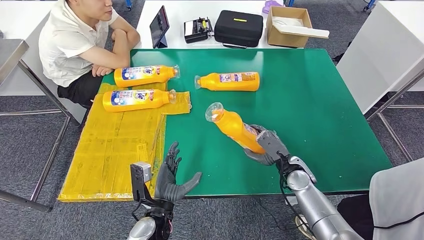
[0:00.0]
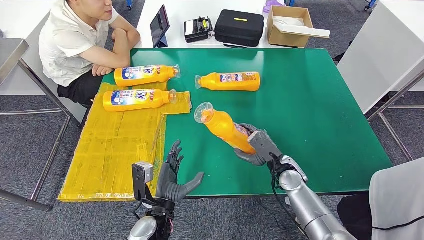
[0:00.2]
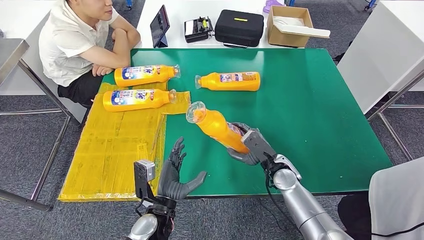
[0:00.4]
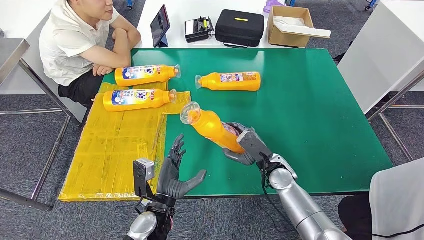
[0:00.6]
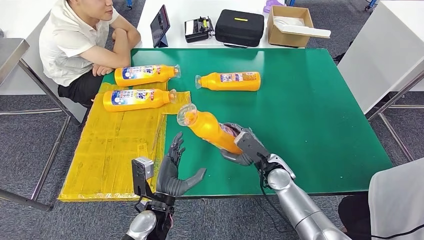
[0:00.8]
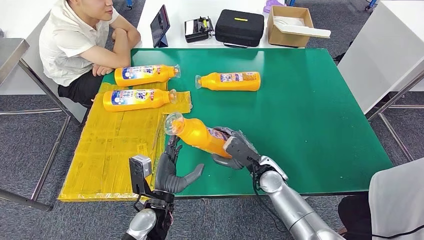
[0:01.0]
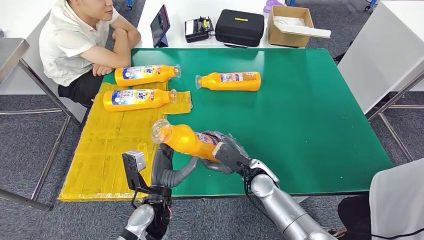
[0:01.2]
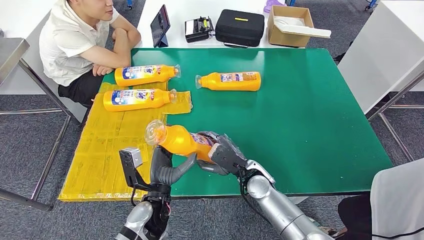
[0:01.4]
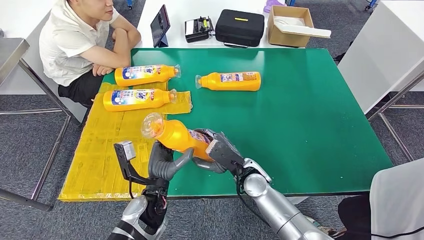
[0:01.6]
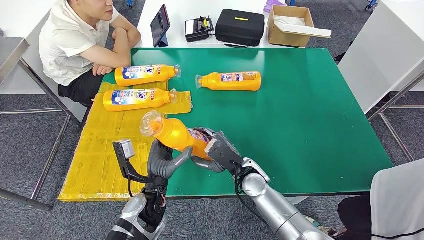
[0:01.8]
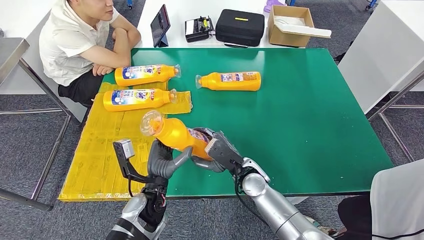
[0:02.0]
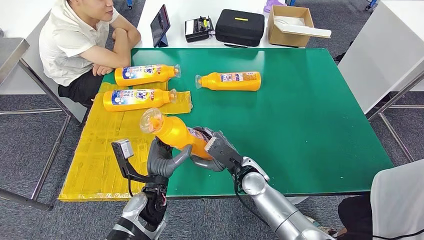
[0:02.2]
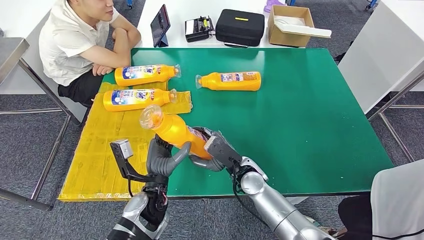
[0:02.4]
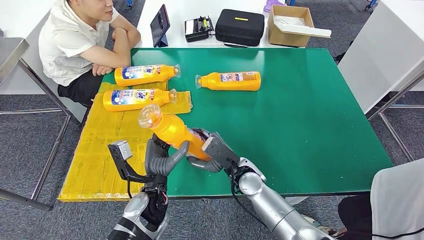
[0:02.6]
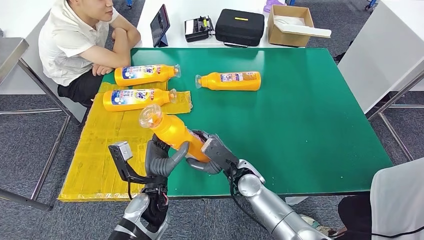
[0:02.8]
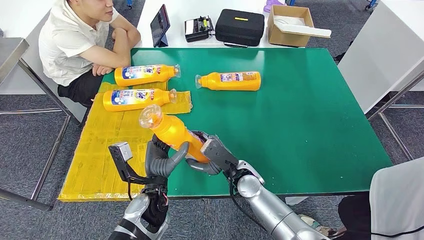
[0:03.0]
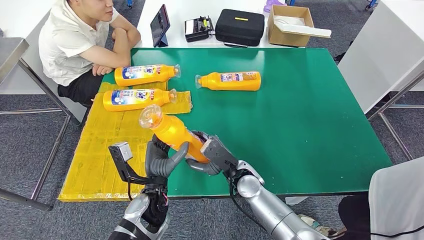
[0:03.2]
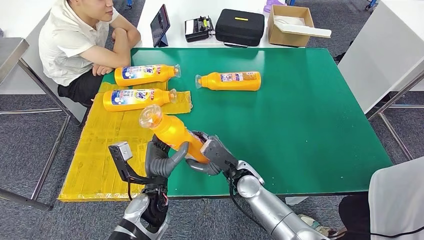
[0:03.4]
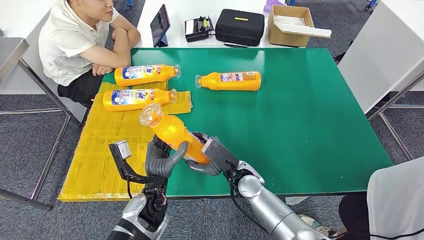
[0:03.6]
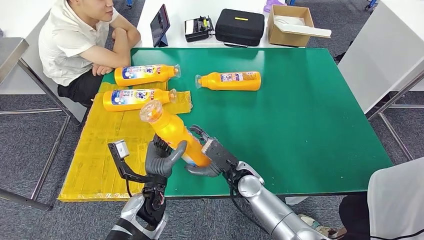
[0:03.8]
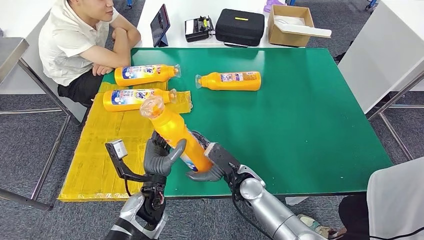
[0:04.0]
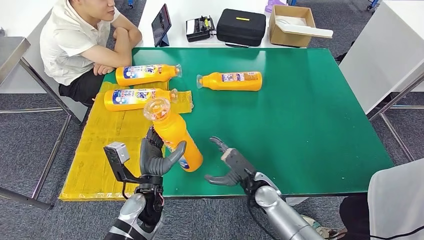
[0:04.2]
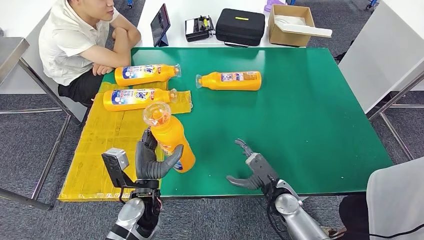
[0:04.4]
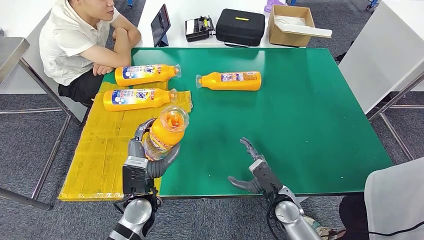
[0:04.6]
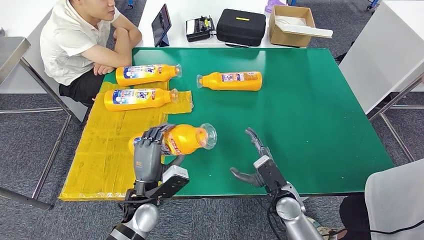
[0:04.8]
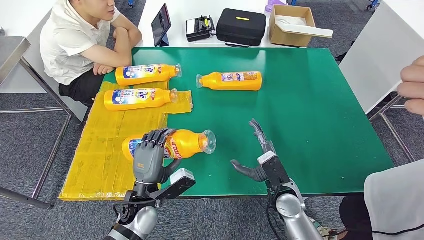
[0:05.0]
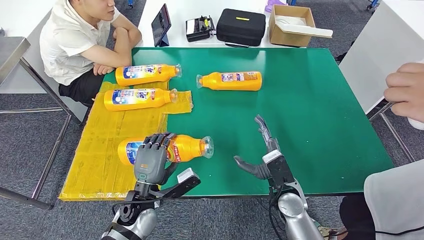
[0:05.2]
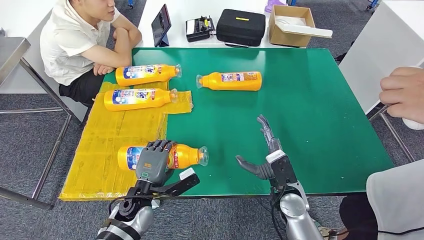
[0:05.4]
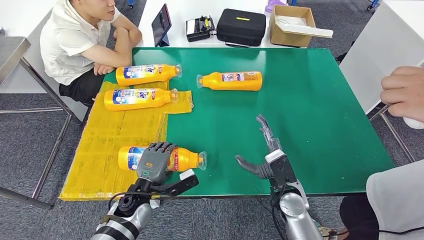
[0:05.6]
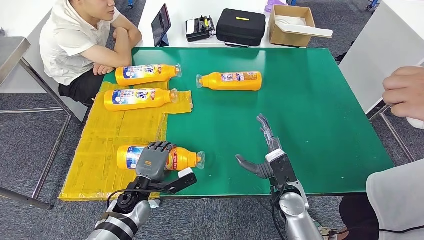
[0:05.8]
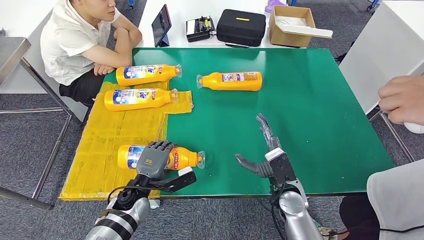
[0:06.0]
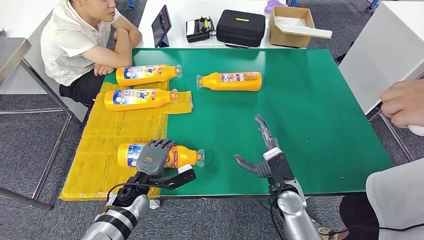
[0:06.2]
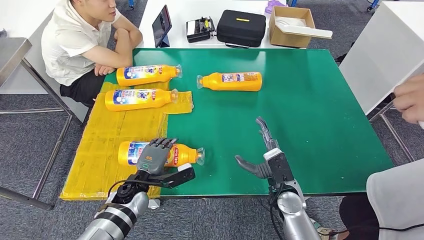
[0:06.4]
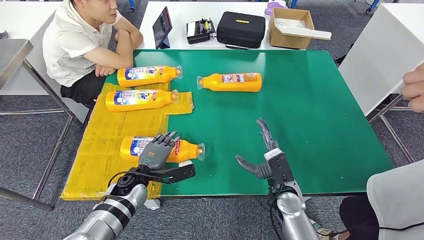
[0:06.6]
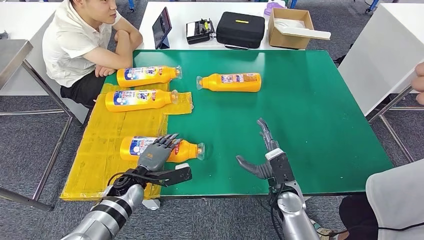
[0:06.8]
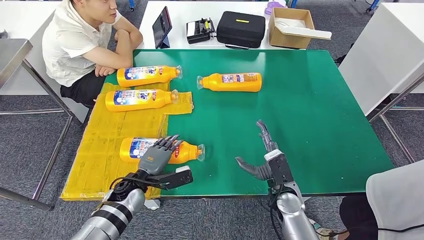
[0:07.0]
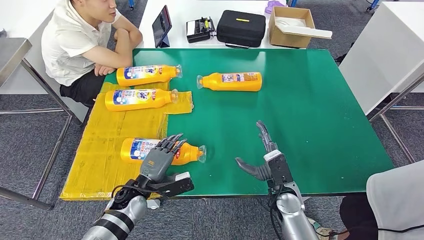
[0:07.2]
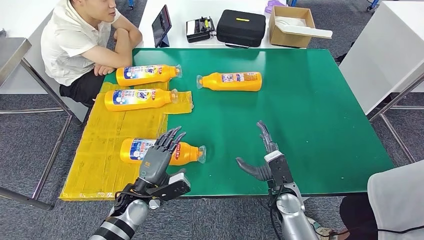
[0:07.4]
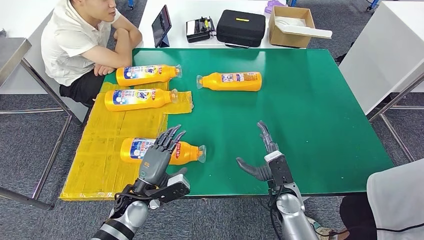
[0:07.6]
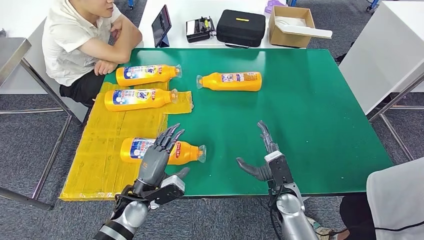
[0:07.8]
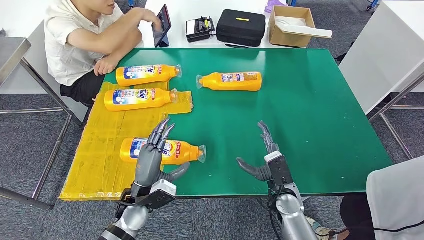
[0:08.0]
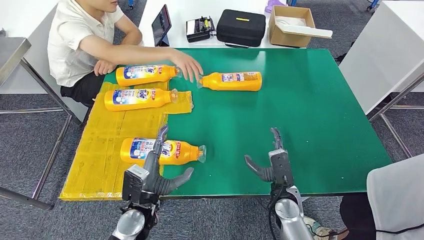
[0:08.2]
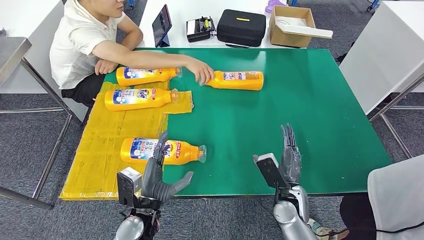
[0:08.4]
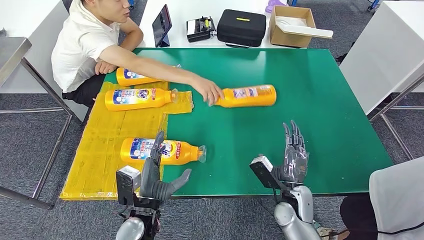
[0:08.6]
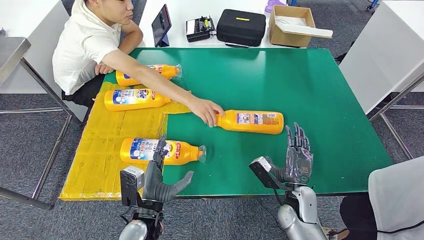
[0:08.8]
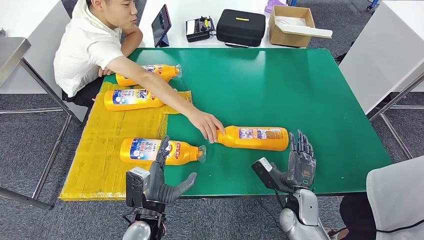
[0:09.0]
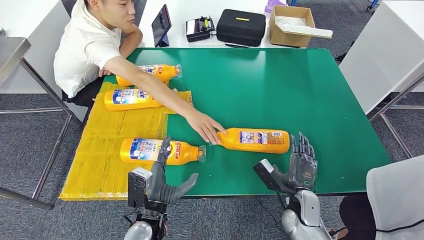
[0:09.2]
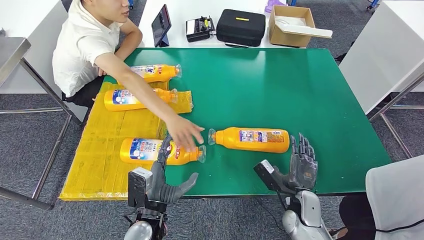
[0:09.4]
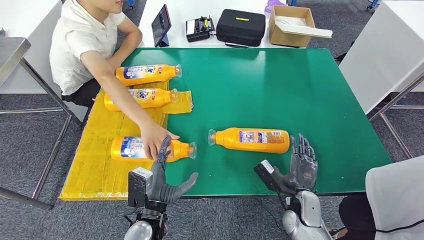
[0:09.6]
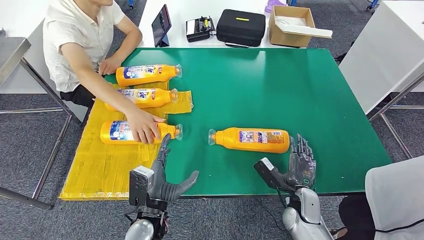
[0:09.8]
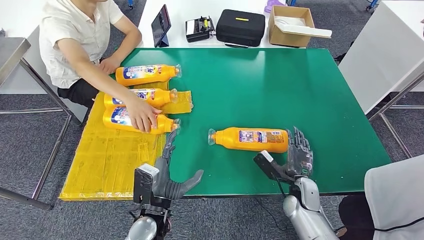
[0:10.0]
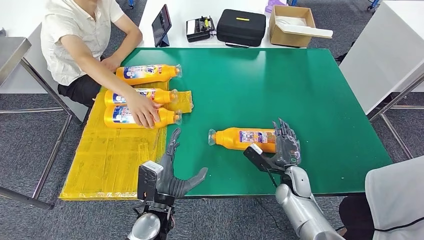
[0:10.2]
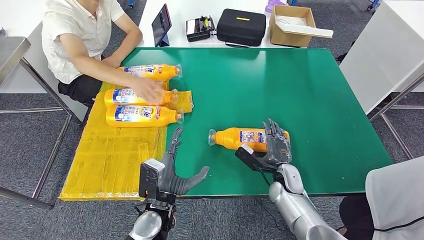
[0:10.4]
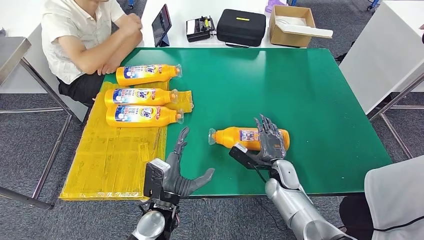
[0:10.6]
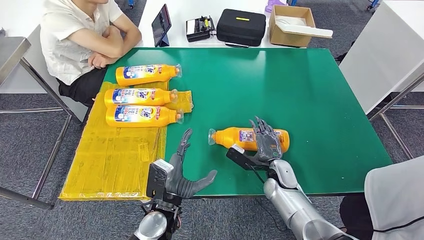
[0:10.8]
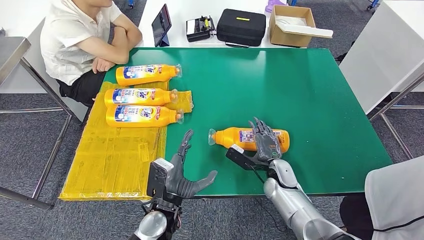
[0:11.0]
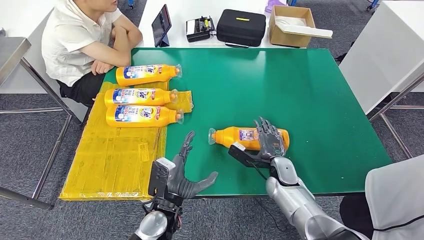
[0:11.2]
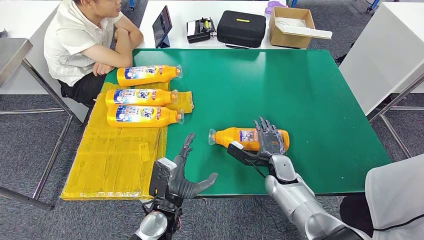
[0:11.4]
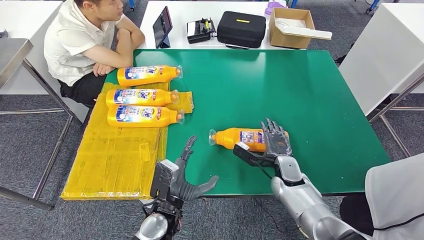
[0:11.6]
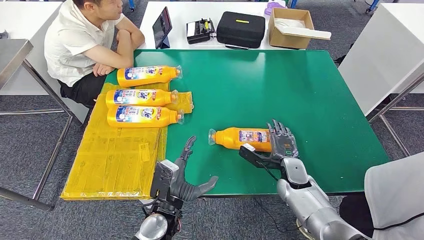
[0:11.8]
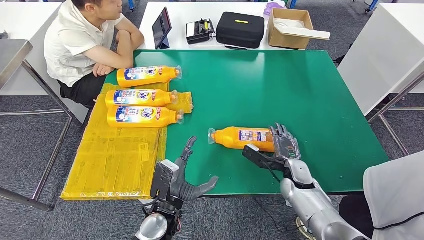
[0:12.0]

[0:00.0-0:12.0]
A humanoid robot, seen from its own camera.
Step, 0:00.0 to 0:02.4: Pick up the fast-moving consumer goods bottle from the table.
Step, 0:03.0 to 0:08.8: Flip the fast-moving consumer goods bottle to the front side.
0:00.0 to 0:01.6: The right hand moves to the left, roughly 15 cm. Meanwhile the left hand shifts by about 5 cm.
0:01.6 to 0:03.0: There are only small adjustments of the hands.
0:03.0 to 0:04.4: The right hand moves to the right, some 10 cm.
0:04.4 to 0:06.0: The right hand goes roughly 5 cm upward; the left hand heads downward, covering some 5 cm.
0:07.6 to 0:09.0: The left hand travels backward by some 5 cm.
0:09.0 to 0:10.4: The right hand heads forward, covering approximately 5 cm.

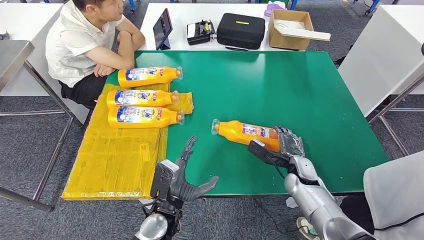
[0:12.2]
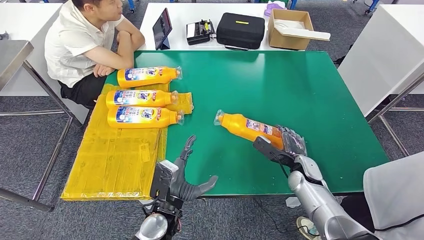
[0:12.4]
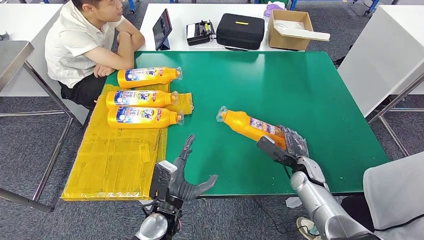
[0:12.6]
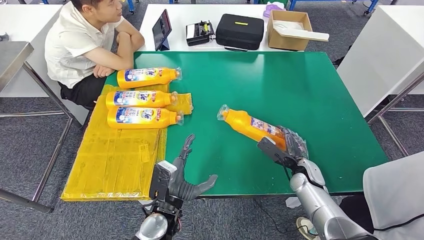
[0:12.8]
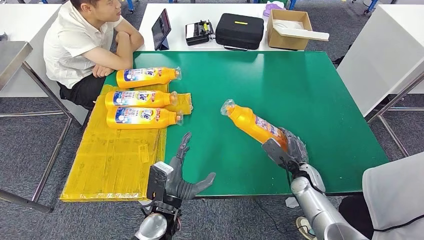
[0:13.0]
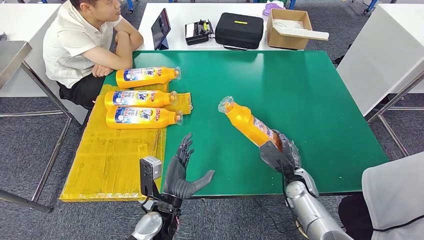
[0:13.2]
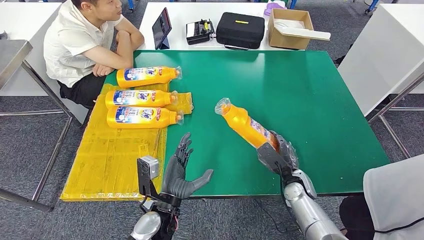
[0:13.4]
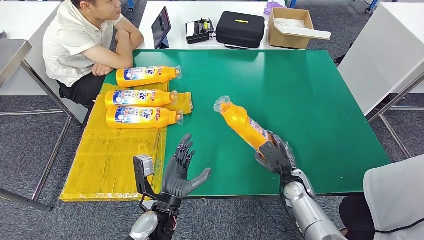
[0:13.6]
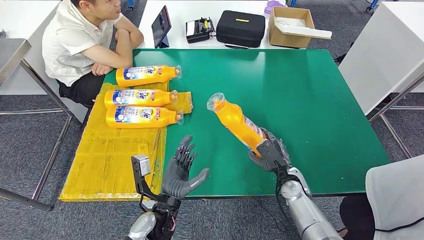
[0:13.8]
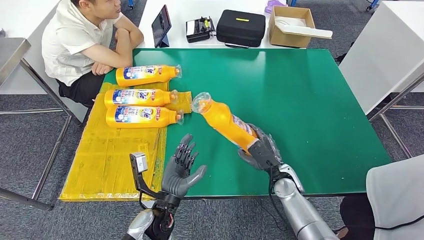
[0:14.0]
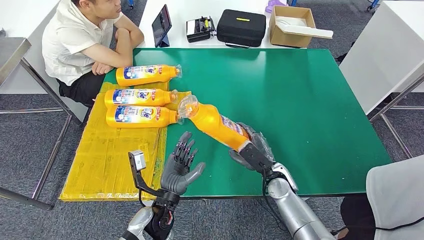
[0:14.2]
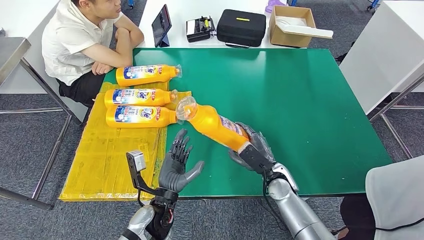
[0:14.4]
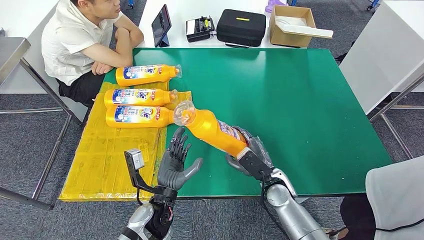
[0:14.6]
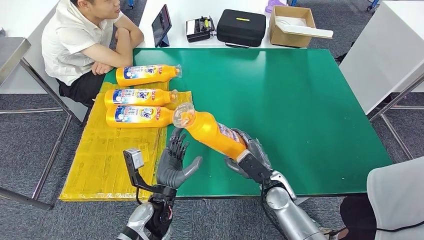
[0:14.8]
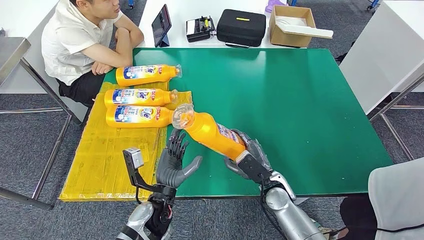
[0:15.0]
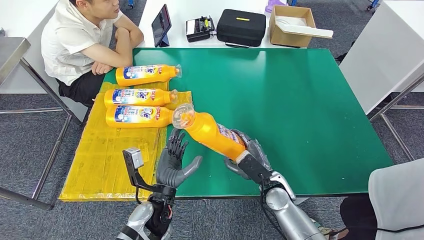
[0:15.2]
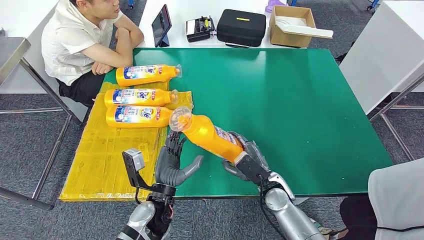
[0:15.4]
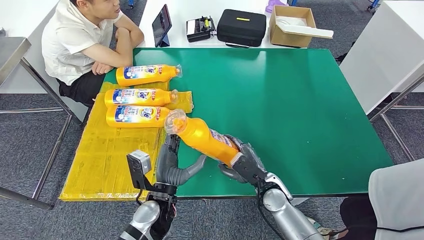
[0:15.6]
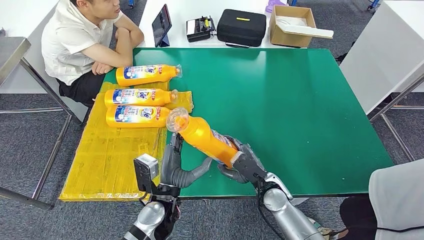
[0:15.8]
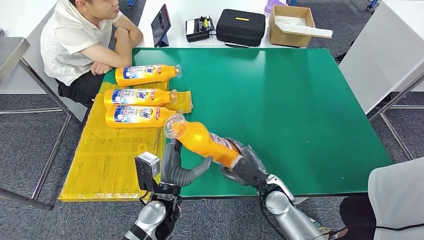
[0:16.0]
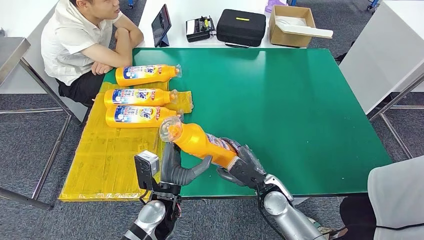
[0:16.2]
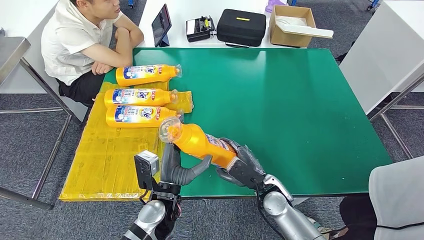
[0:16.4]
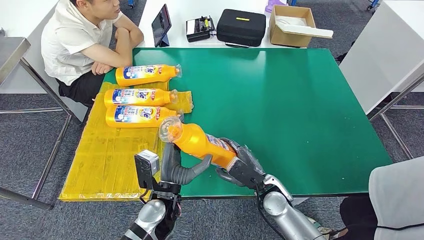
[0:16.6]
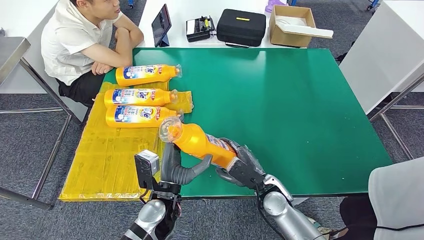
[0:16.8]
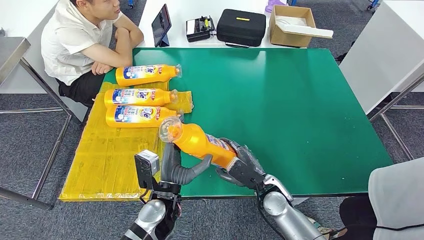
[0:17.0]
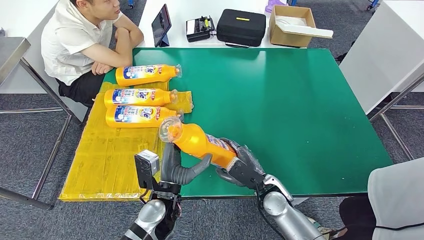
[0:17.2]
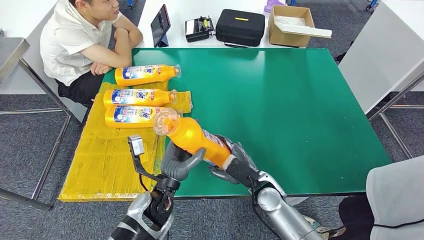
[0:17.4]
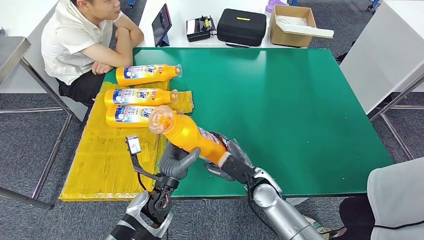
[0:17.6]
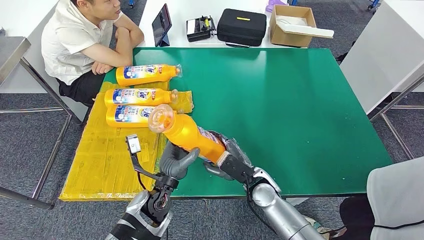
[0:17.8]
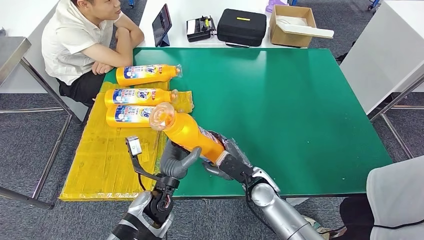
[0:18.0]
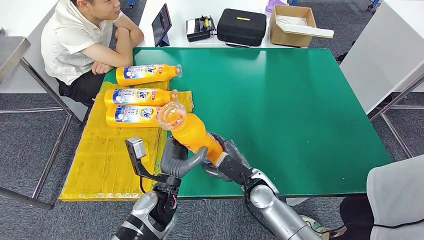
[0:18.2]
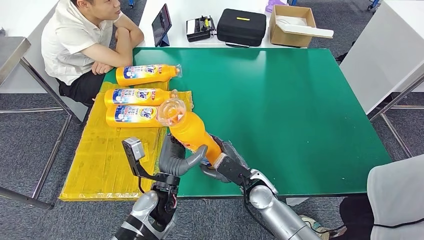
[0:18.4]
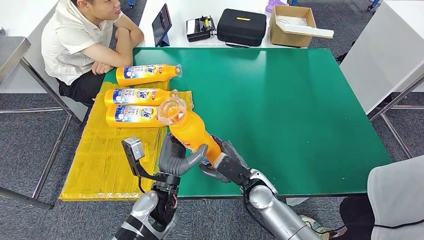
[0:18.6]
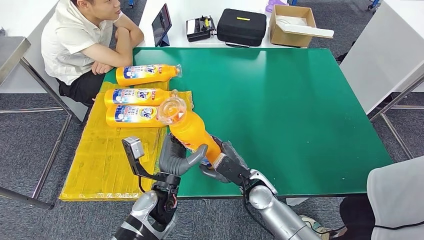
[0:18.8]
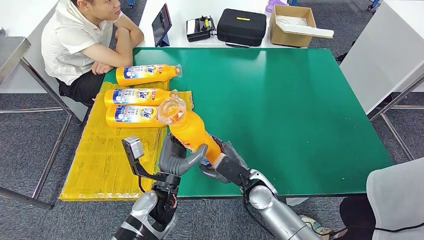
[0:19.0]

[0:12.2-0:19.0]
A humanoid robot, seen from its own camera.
Step, 0:12.2 to 0:18.4: Pick up the fast-moving consumer goods bottle from the table.
0:13.6 to 0:15.0: The right hand moves to the left, roughly 10 cm.
